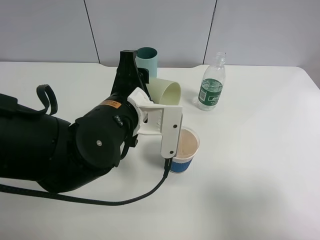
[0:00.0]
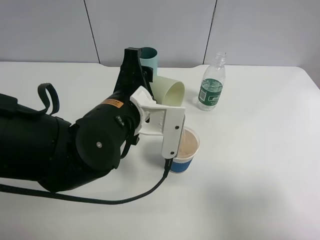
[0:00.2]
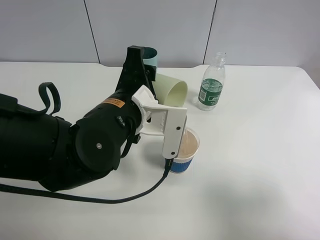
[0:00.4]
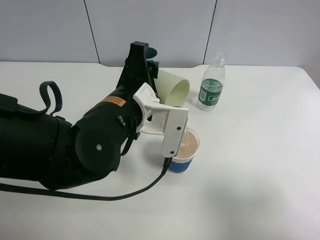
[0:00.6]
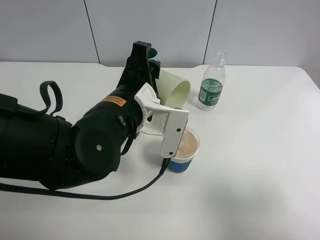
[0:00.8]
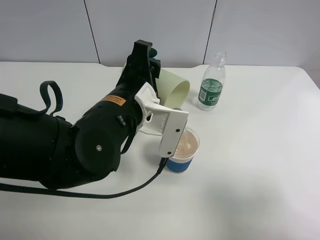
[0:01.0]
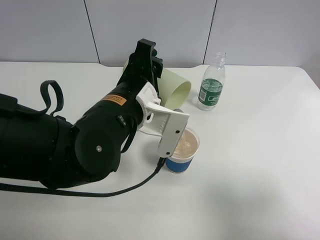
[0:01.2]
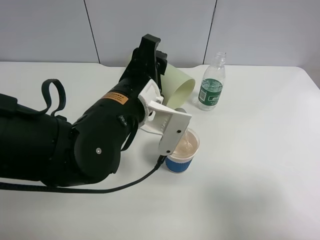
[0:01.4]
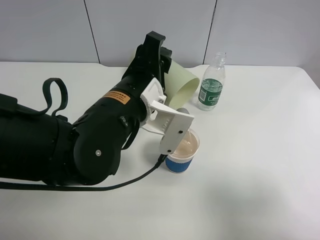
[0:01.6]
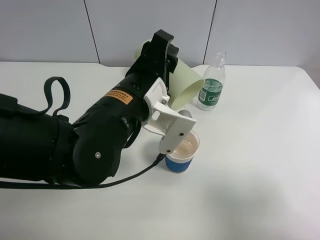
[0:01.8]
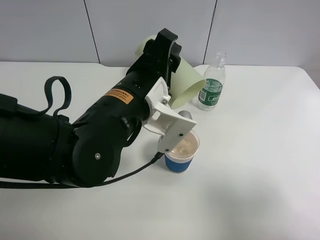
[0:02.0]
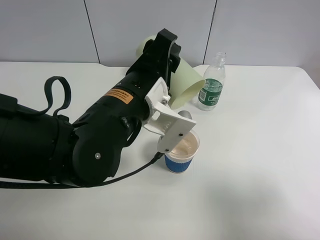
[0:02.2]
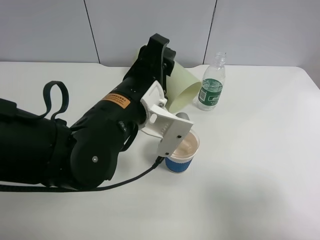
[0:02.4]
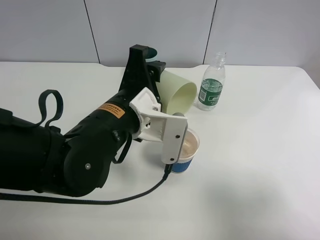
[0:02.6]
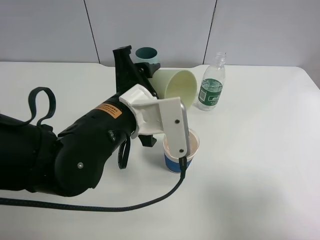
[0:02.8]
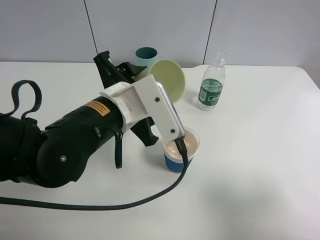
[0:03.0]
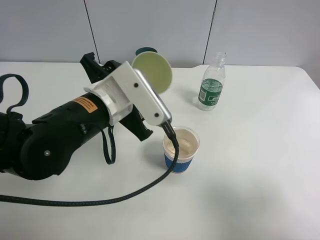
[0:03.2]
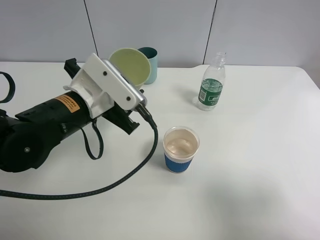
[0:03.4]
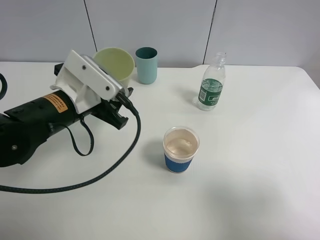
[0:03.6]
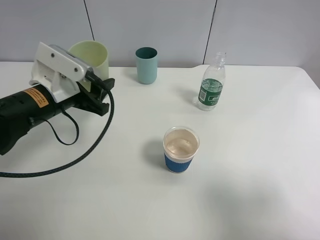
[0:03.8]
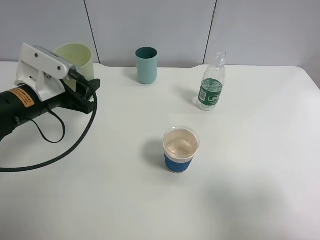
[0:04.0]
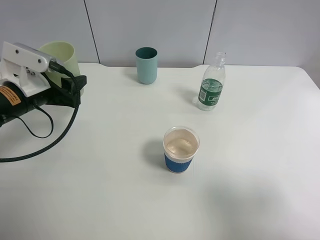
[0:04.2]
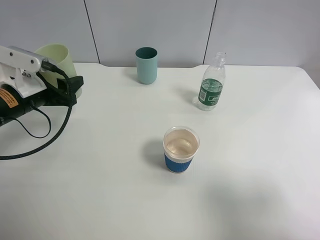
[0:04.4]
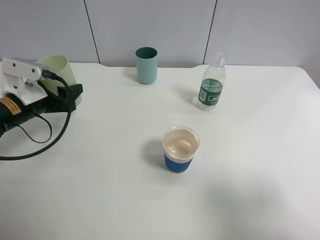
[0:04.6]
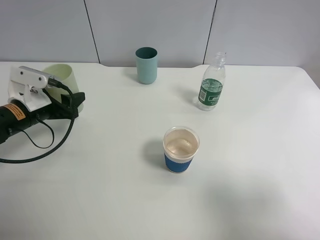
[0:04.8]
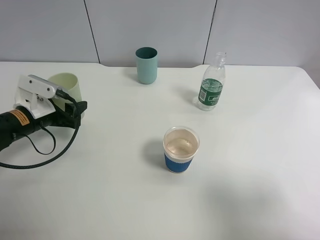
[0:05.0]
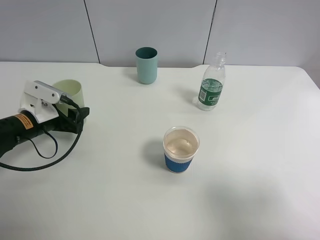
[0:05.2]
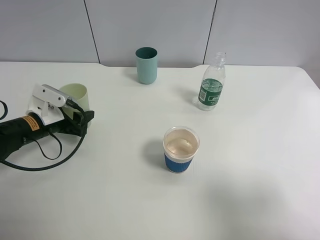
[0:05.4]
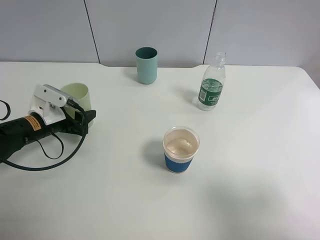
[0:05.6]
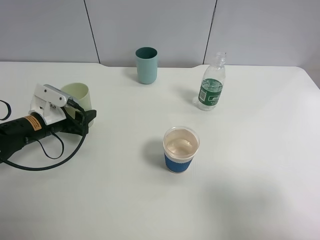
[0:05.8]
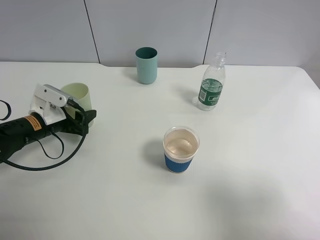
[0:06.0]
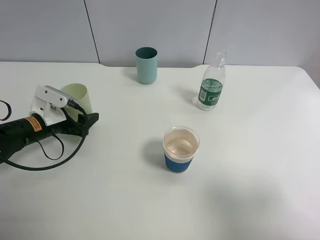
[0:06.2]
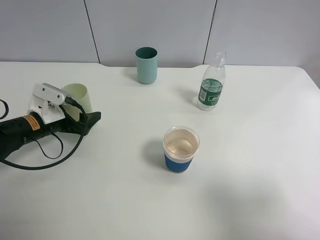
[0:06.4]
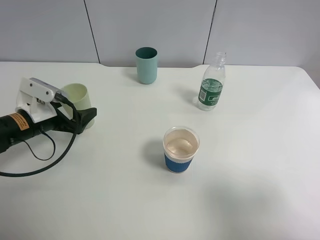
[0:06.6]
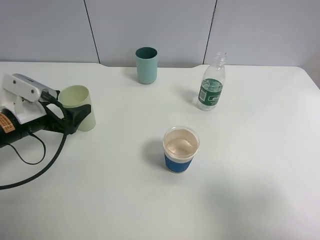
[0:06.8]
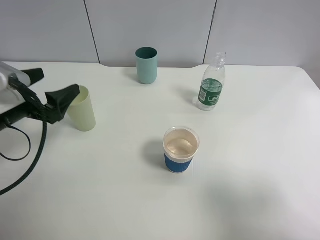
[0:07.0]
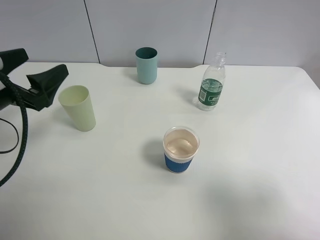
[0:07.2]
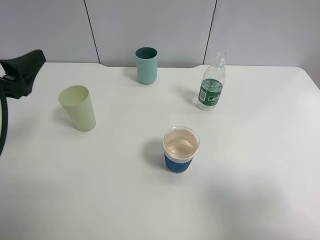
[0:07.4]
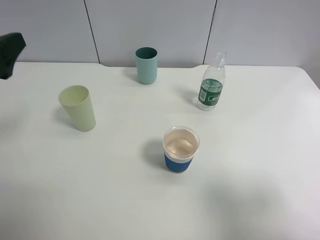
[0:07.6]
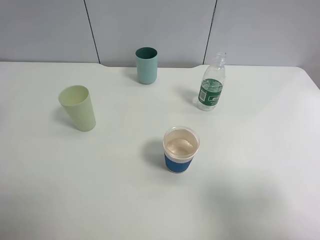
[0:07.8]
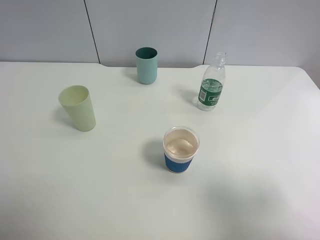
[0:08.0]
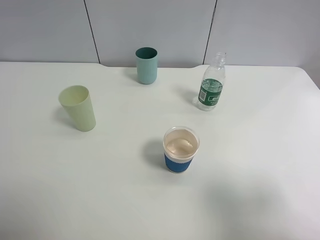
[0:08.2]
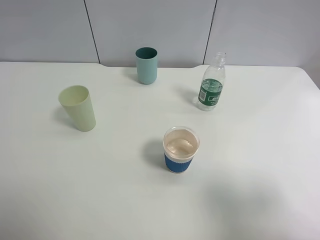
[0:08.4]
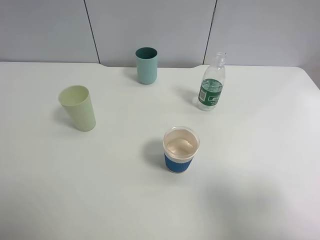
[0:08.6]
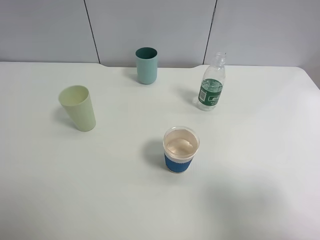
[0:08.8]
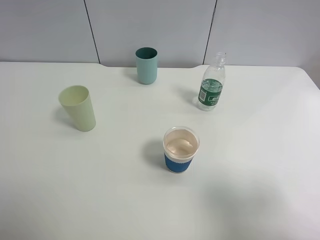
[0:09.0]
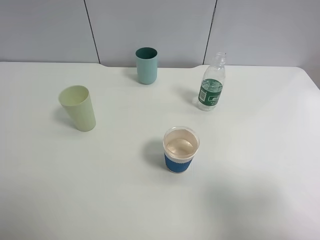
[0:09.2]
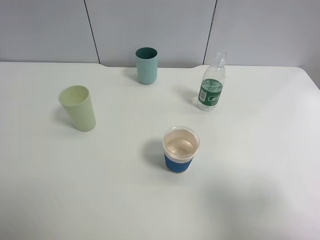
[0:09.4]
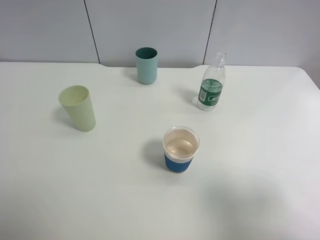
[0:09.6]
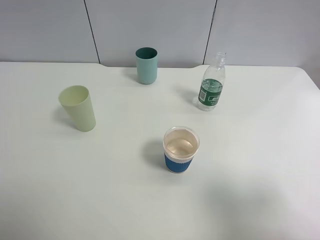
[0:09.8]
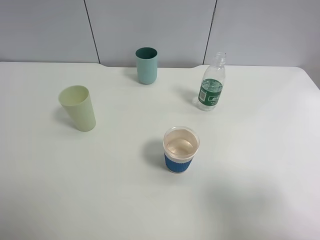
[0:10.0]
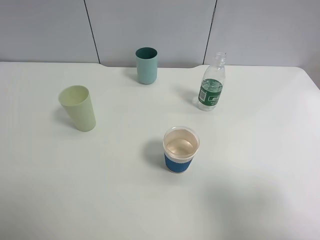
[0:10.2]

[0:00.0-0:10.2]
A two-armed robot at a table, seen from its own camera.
Task of the whole recording: use a clamp to hold the bottle of the drink, pour the beverage into a random cup, then clamp the cup containing the drink and pour the drink into another random cup.
Step, 0:00.0 to 0:03.0: Pour water into the paper cup with left gripper.
Step, 0:03.2 to 0:06.4: Place the water bottle on the table with left gripper.
0:00.0 to 0:01.4: There are only small adjustments of the grippers.
0:03.0 to 0:04.4: The left gripper goes roughly 20 cm to the left.
0:04.4 to 0:05.8: The left gripper goes about 10 cm downward.
0:05.8 to 0:07.2: The left gripper is displaced upward and backward by about 15 cm, and opens up.
0:07.2 to 0:08.8: The left gripper shifts roughly 20 cm backward and upward.

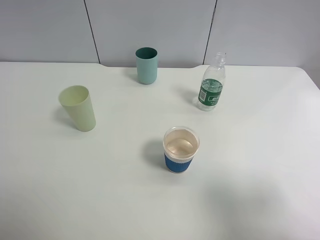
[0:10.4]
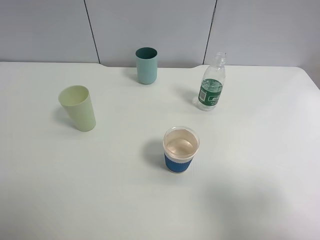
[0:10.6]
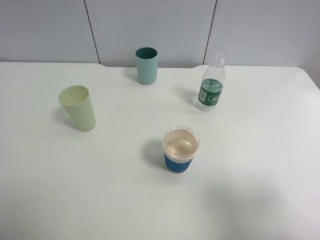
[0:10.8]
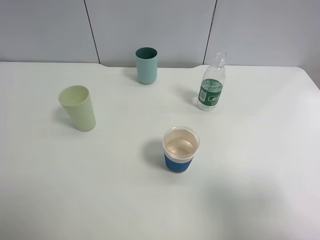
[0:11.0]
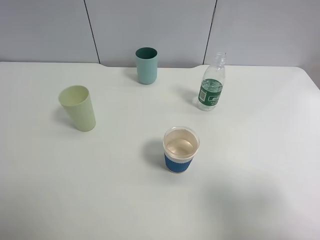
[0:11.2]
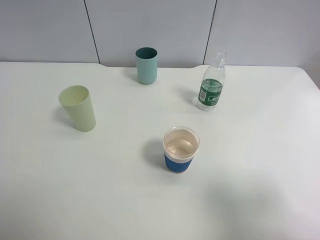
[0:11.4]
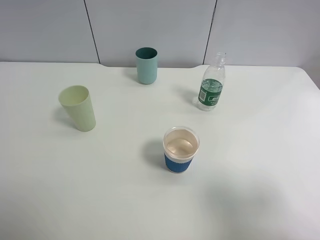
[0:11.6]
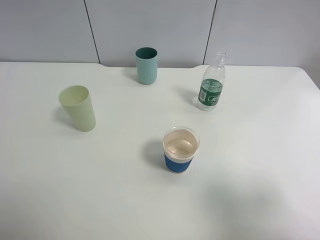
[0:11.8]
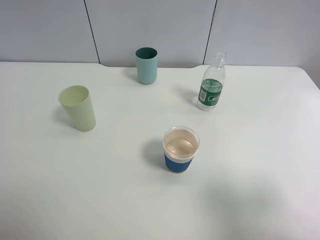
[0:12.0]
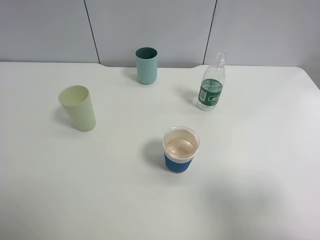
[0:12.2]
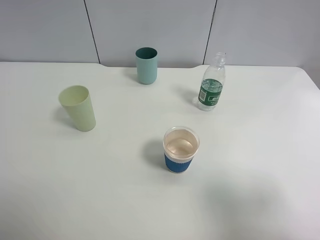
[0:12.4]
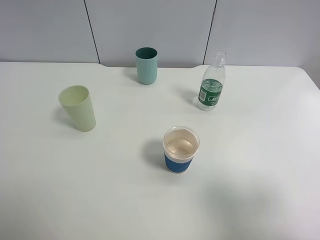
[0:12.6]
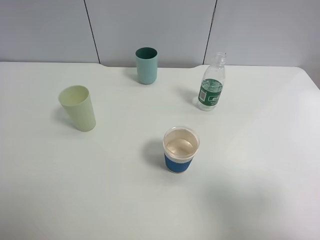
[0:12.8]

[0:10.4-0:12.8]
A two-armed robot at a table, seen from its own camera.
Task of the whole recording: use a clamp to hold the bottle of the drink, pour the beverage into a random cup, then clamp the cup containing the drink and pour the drink into another random cup.
0:10.4 to 0:12.8: Both grippers stay put.

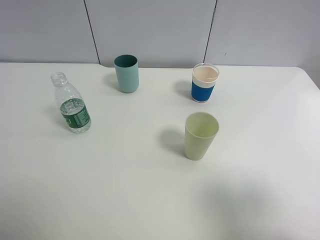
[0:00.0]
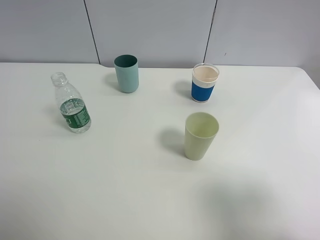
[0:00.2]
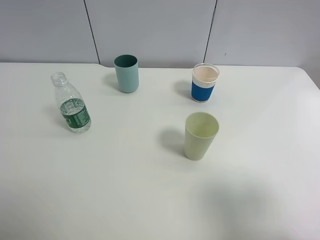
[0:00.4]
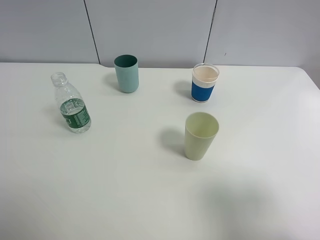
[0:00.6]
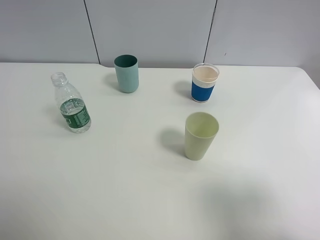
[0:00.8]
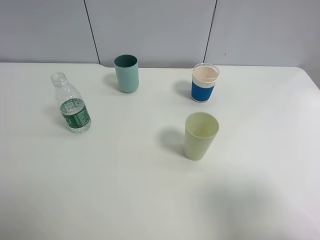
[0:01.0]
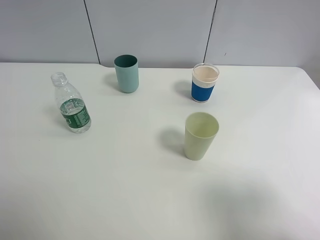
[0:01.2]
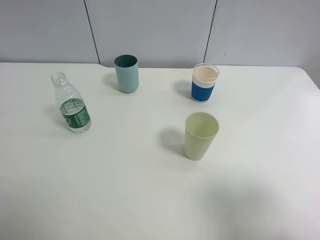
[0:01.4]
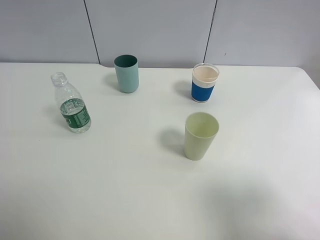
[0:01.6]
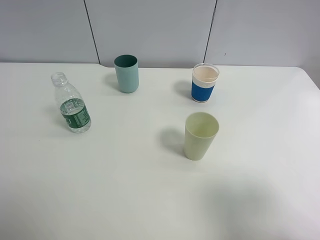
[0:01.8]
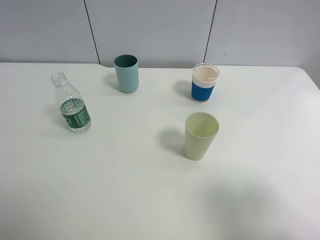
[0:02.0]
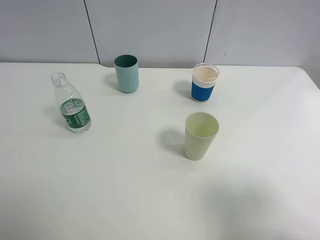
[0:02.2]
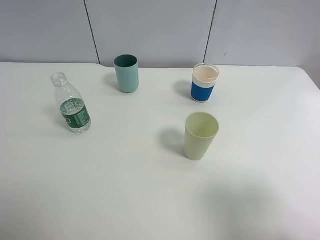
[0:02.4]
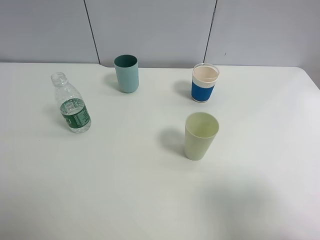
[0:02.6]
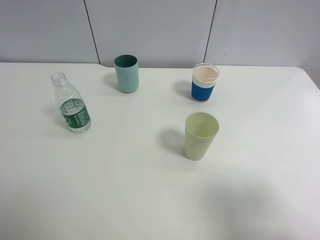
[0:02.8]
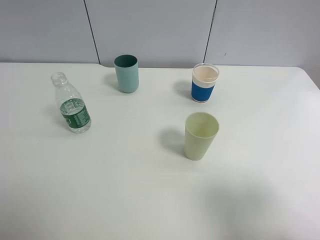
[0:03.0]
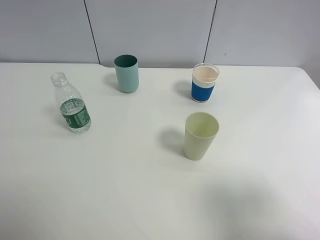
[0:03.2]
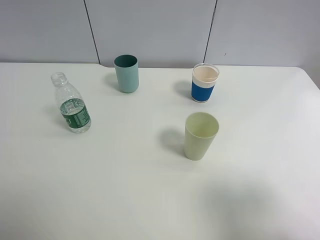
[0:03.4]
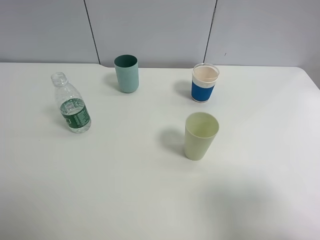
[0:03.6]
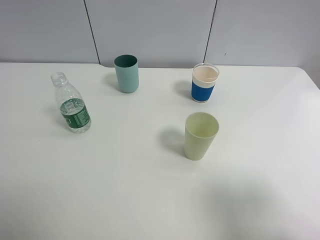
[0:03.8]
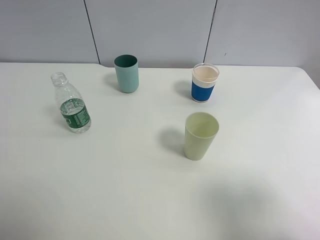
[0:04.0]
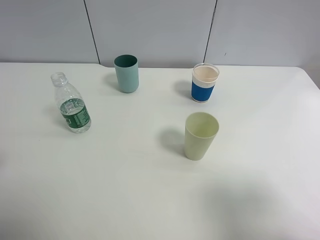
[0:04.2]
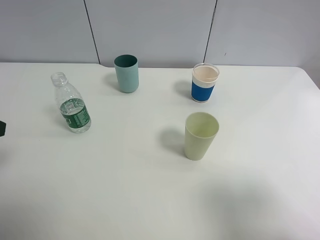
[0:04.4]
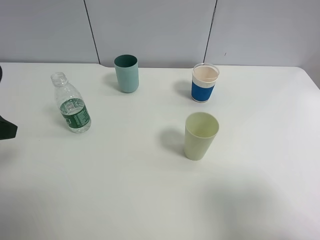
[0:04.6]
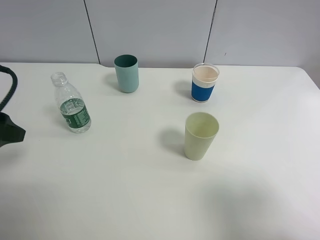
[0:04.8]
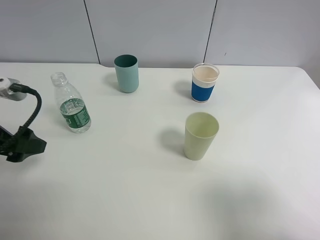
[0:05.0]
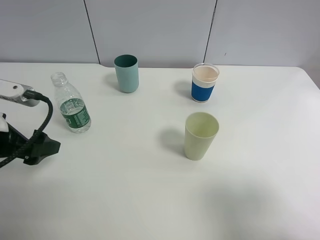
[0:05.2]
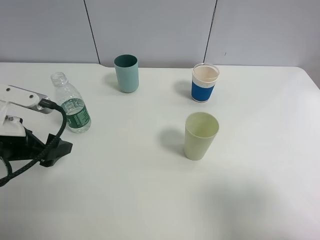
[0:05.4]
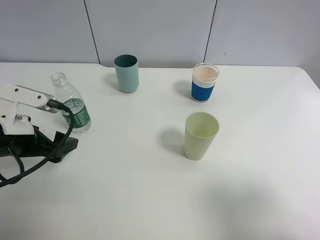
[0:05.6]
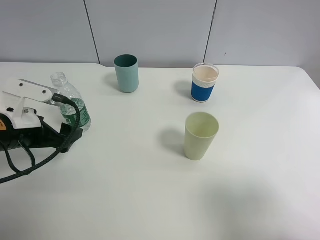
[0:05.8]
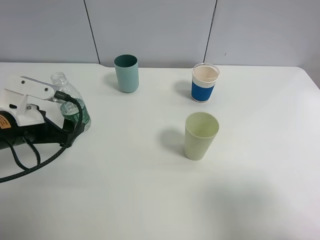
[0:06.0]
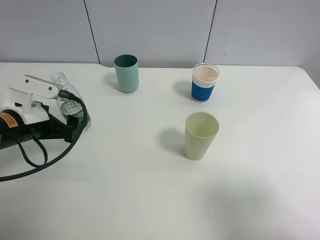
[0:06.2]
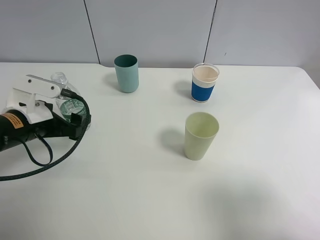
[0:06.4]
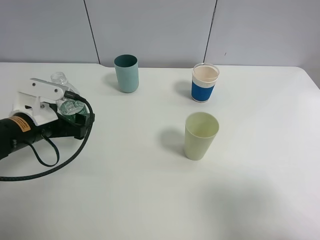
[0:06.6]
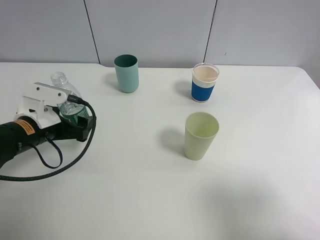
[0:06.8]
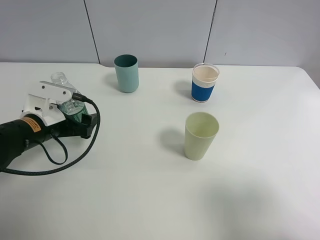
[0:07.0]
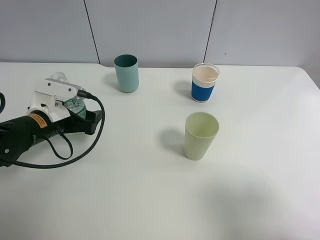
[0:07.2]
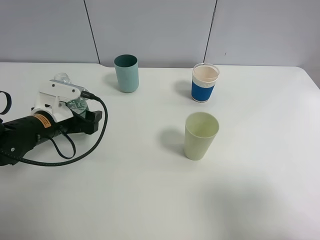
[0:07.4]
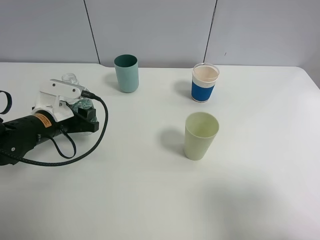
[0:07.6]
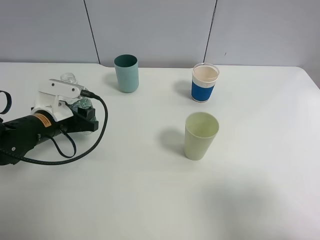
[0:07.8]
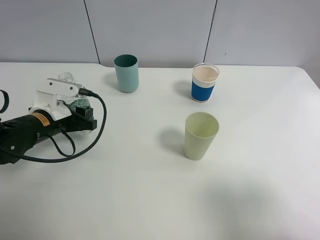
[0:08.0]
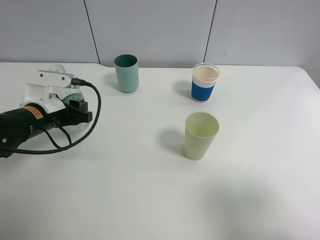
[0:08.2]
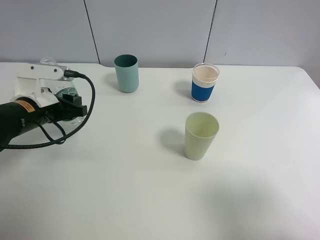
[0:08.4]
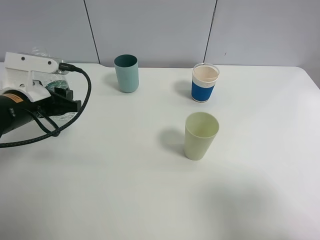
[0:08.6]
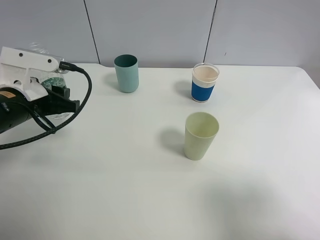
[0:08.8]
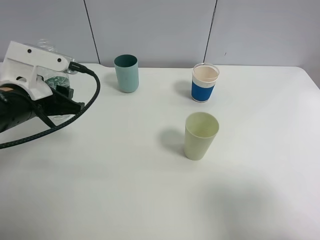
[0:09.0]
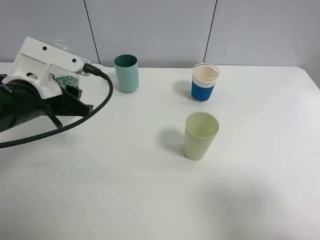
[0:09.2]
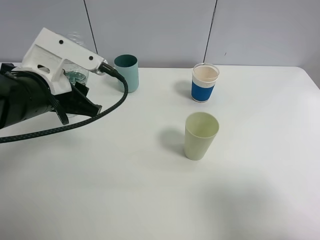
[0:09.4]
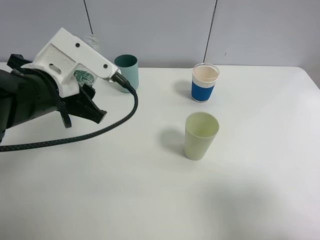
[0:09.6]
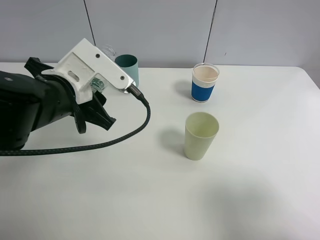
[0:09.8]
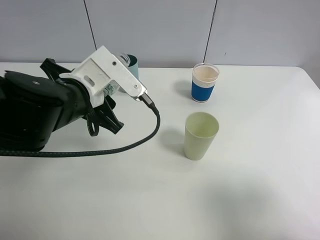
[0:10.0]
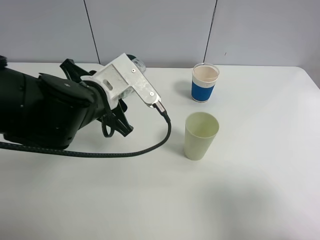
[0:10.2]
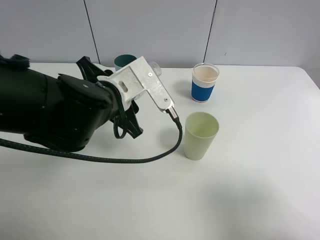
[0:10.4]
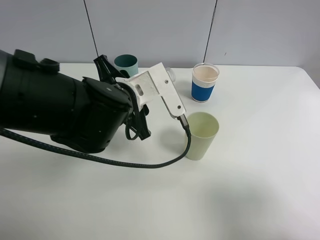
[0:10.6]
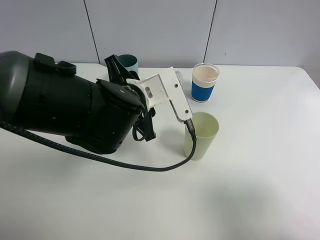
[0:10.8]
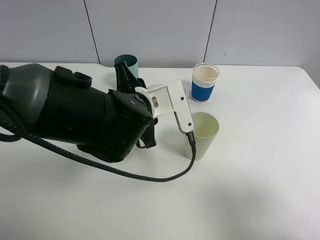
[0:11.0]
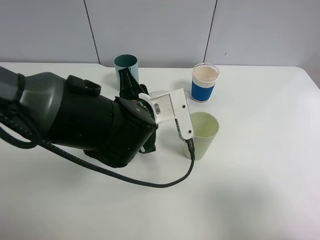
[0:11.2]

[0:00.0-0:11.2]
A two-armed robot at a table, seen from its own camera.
Task of the whole recording: use a clamp to hold the bottle of the drink, pour the beverage into a random cup, then clamp the cup containing the drink and pour the drink into another random cup.
Step, 0:00.0 to 0:09.2: Pick up the water bottle with left gripper.
0:00.0 to 0:03.2: The two grippers keep their place.
0:03.2 to 0:04.8: The left gripper heads forward, covering roughly 15 cm.
0:04.8 to 0:06.4: The left gripper travels downward, forward and to the right by about 15 cm.
0:06.4 to 0:08.0: The left gripper ends up about 5 cm from where it was, and closes up.
0:08.0 to 0:09.6: The left gripper shifts some 15 cm upward, to the right and backward.
0:09.6 to 0:11.2: The left gripper moves to the right and downward, approximately 15 cm.
